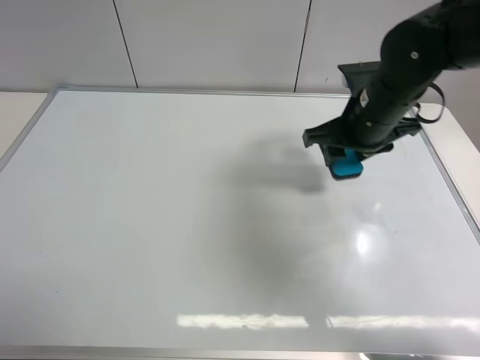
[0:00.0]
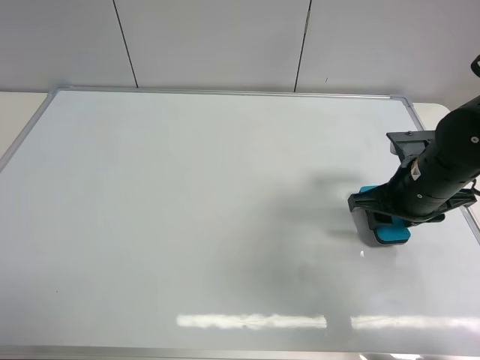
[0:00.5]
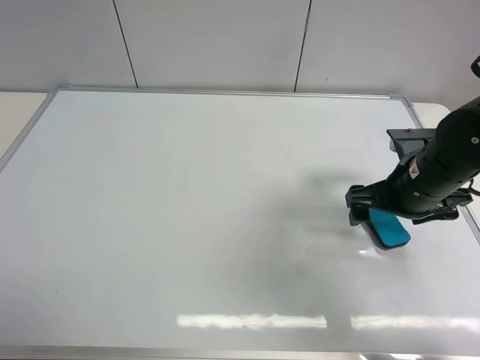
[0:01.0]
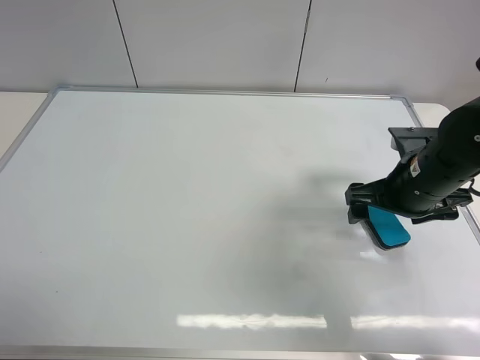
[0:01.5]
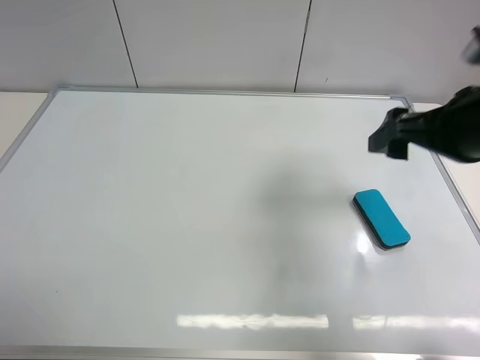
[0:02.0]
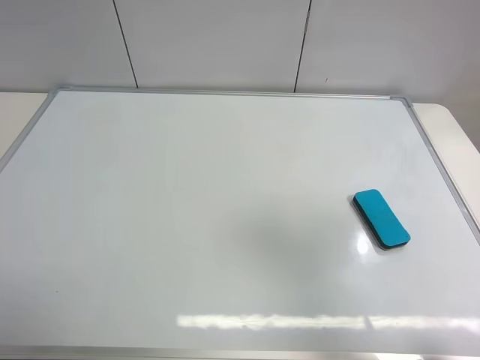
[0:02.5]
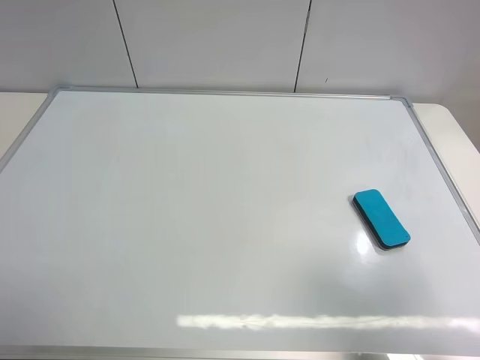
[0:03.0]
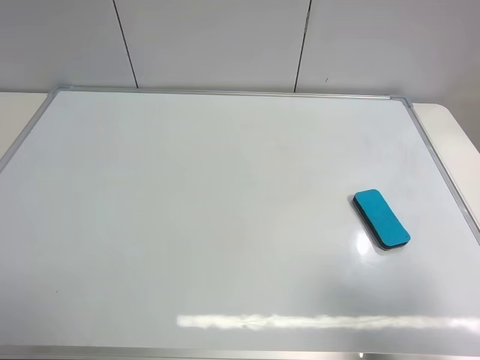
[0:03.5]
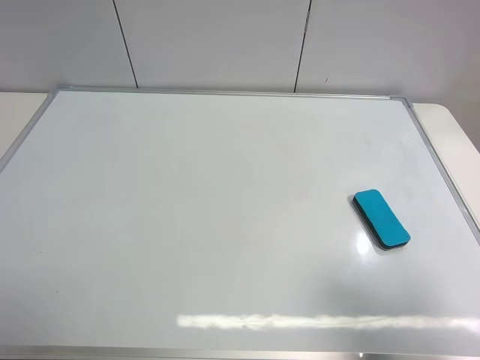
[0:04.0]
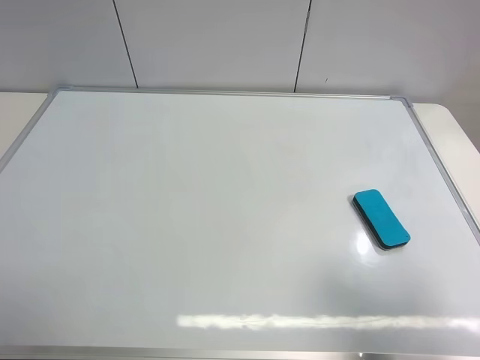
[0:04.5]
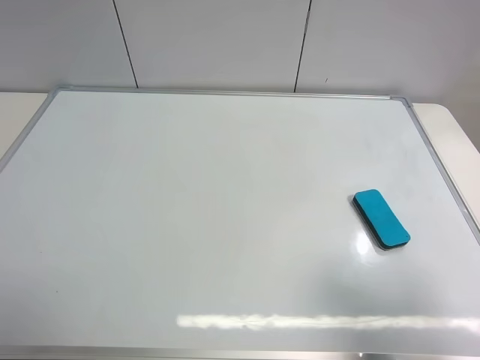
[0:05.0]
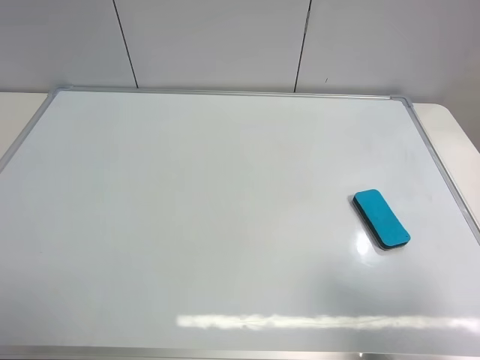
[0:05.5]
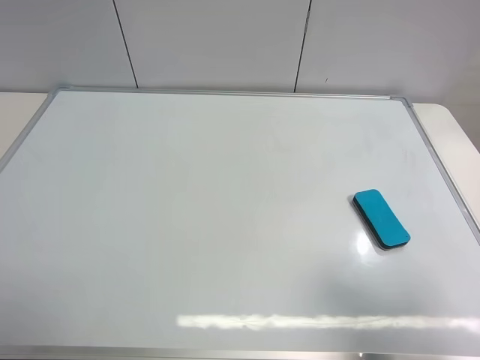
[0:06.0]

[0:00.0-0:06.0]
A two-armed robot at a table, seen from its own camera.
Task of the whole recording: use the left gripper to place the eraser in the right, use the right gripper to pick up the eraser, wipe the notes on the whiteboard clean, and then put it down.
Step, 0.0 to 1.5 s: Place the board eraser on the right side of board with right gripper.
0.0 to 2.0 s: The right gripper is displaced backward, upward and to the right by roughly 15 cm, and opens its fingers.
2.0 to 4.0 s: The right gripper shifts roughly 20 cm backward.
4.0 to 6.0 s: Both grippers stay about where they are.

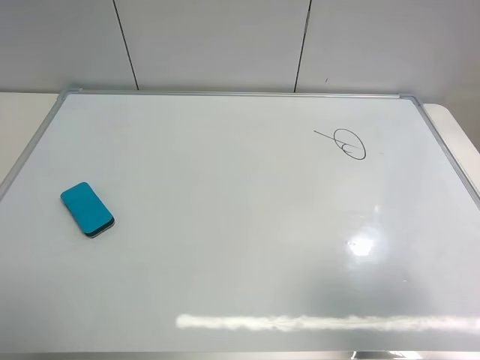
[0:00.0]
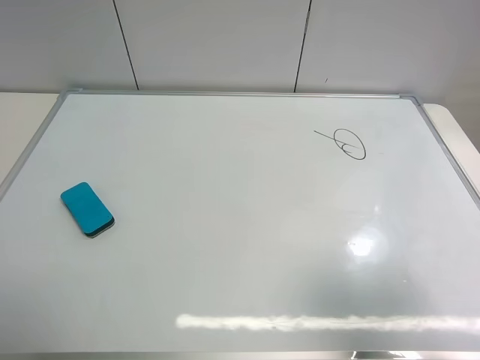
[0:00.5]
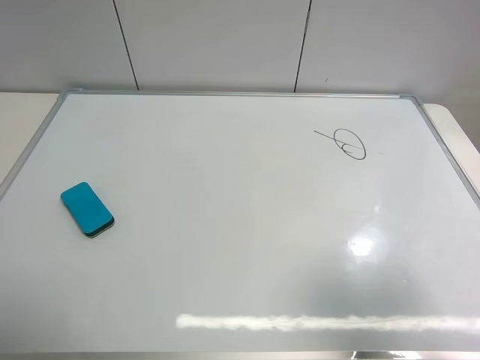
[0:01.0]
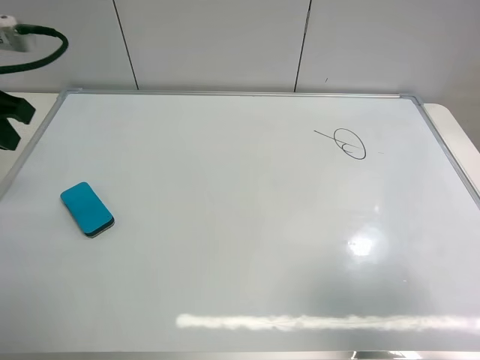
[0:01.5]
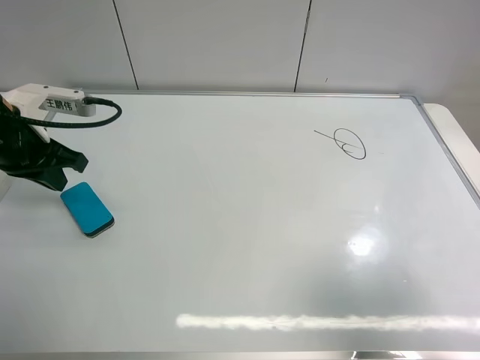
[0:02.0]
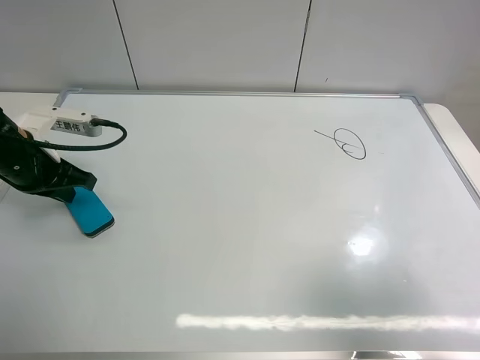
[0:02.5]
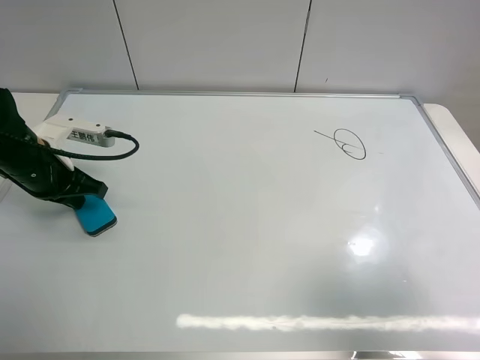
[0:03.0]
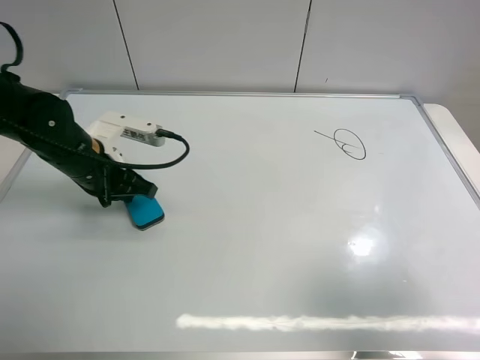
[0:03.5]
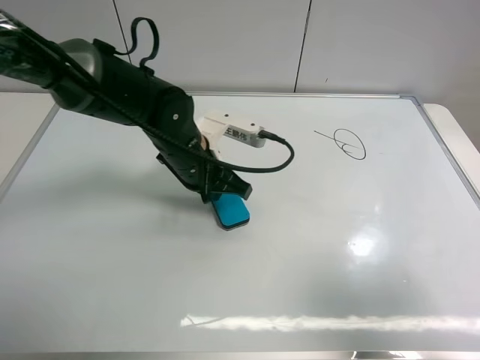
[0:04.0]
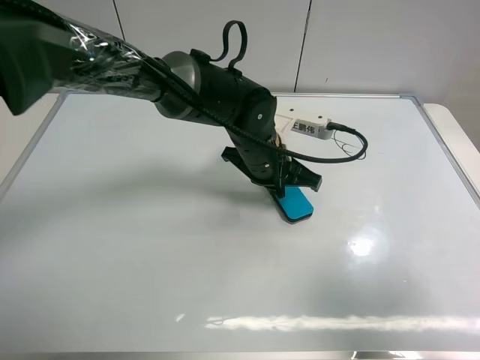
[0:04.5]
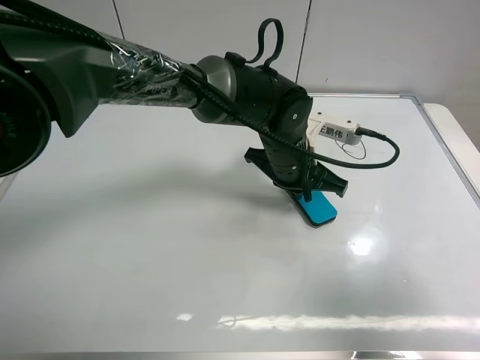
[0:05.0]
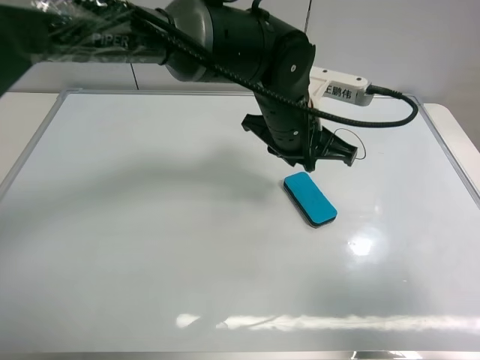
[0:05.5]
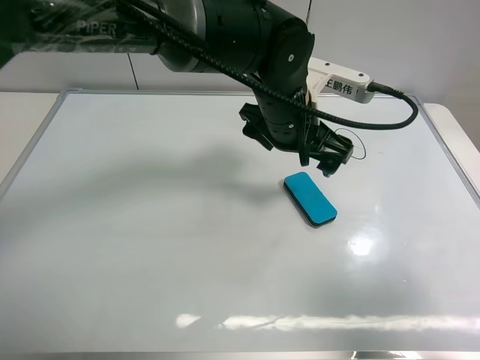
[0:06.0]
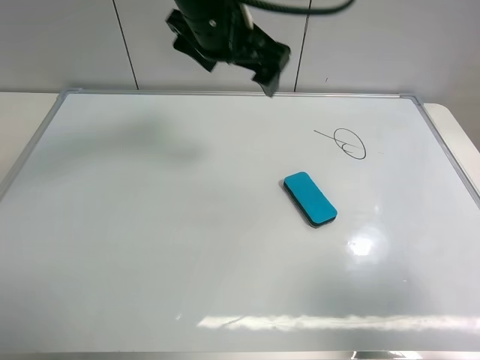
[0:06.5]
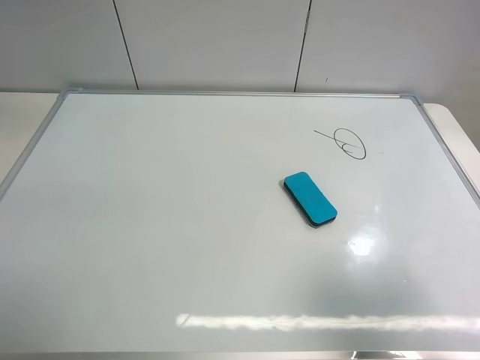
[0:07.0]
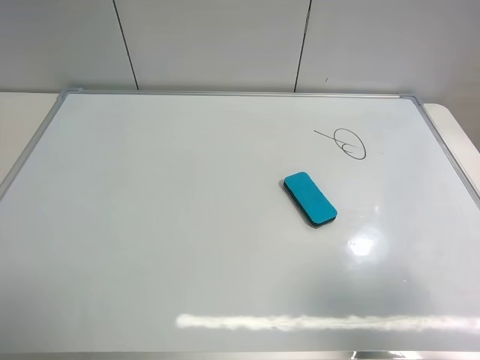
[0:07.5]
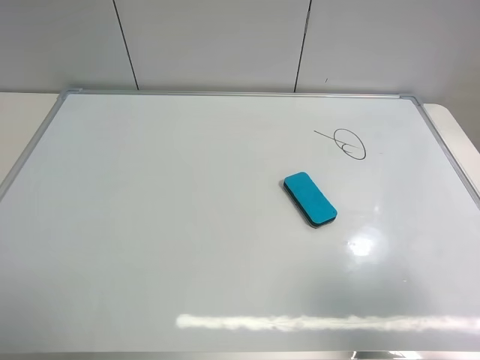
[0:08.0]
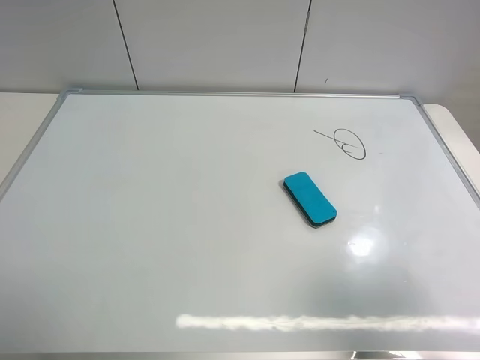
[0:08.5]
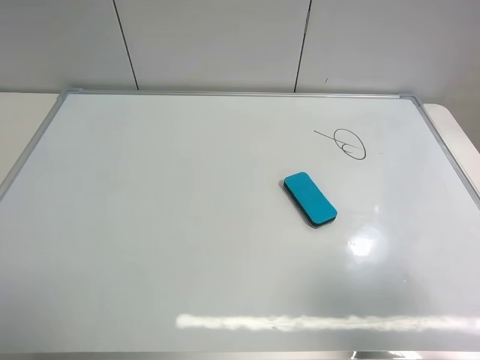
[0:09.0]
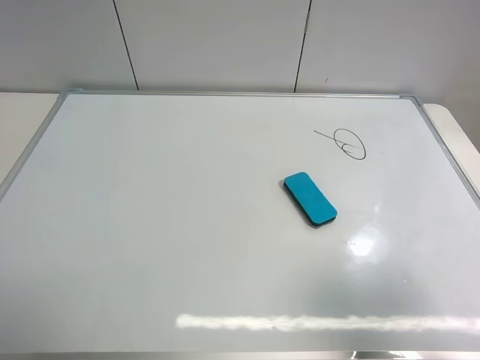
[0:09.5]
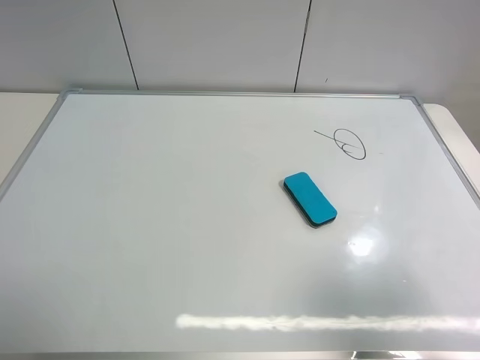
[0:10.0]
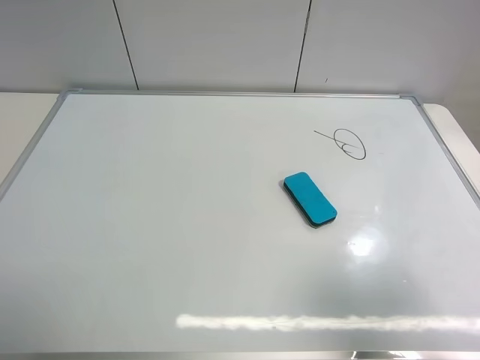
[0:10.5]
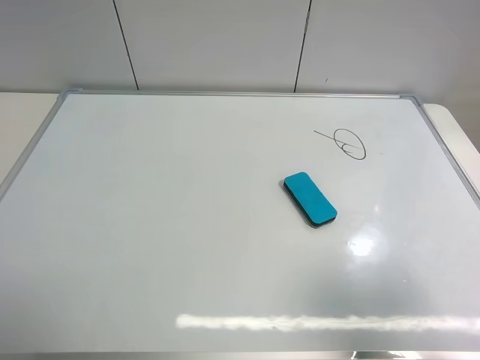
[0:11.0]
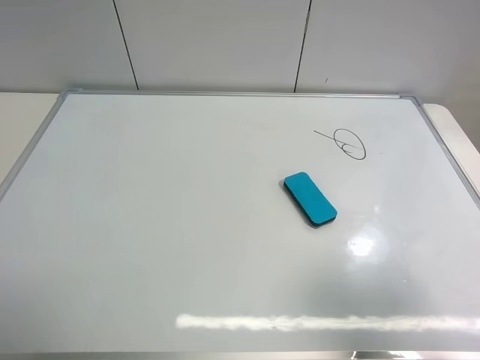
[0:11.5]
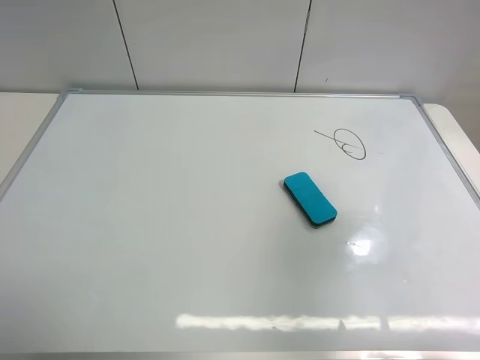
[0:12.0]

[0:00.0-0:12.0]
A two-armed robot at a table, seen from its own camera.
Task of the whole recording: use the left gripper to place the eraser in the right, use the right gripper to pick up the eraser, wipe the notes on the whiteboard clean, and then put it down.
Step, 0.0 to 5.0 s: Move the board eraser to the right of the whiteboard with left gripper.
0.0 to 2.0 s: The left gripper travels forward by about 30 cm, and closes up.
2.0 to 4.0 s: The left gripper heads to the right, covering roughly 20 cm.
4.0 to 6.0 s: The left gripper travels to the right and upward by approximately 15 cm, and opens up.
6.0 to 8.0 s: The left gripper goes roughly 60 cm to the left, backward and upward.
10.0 to 12.0 s: The right gripper travels forward and upward by approximately 10 cm.

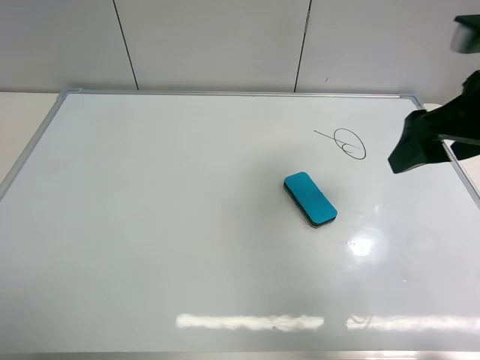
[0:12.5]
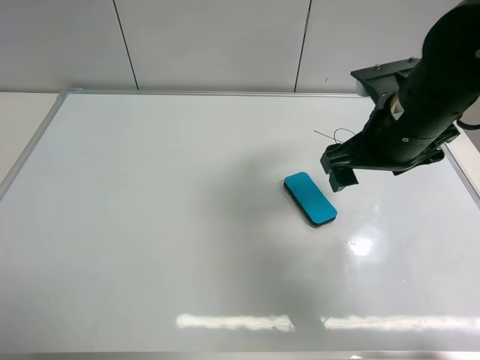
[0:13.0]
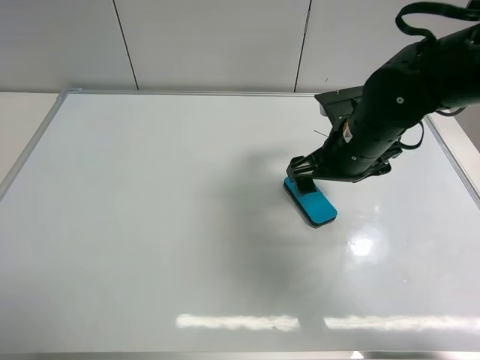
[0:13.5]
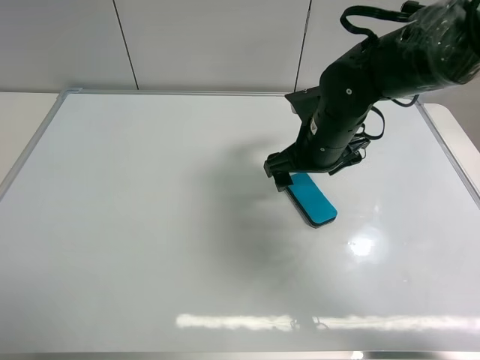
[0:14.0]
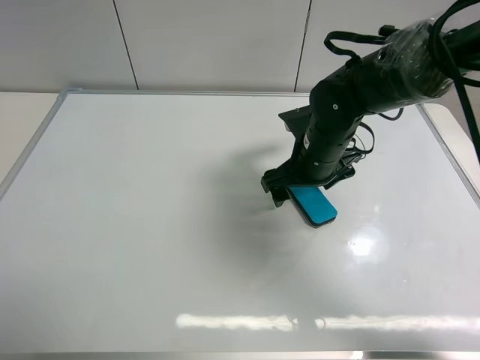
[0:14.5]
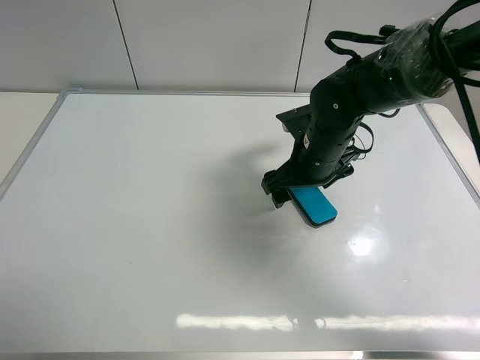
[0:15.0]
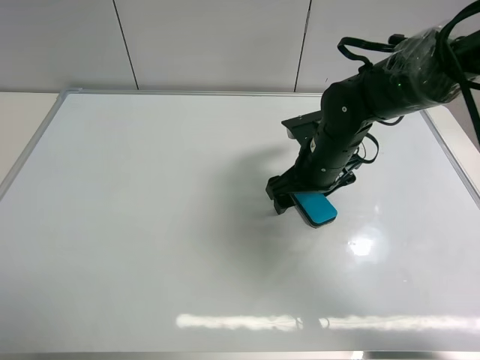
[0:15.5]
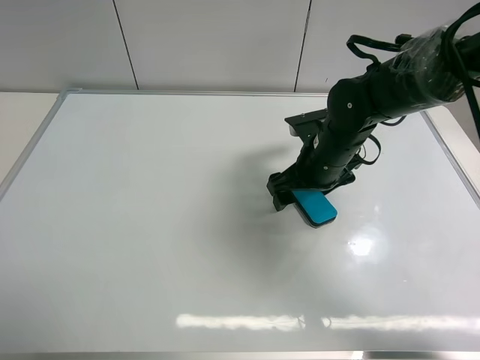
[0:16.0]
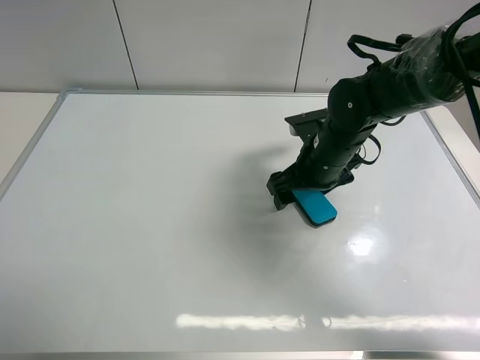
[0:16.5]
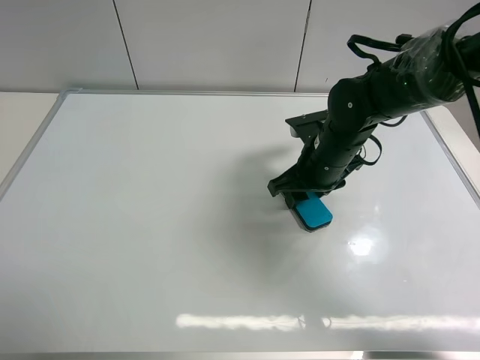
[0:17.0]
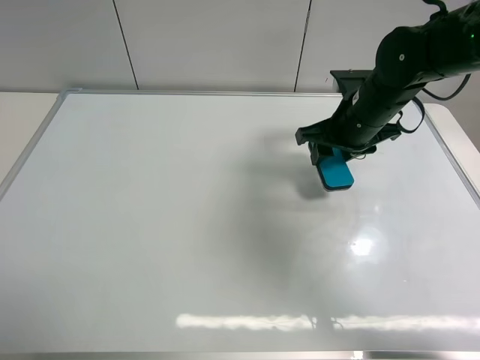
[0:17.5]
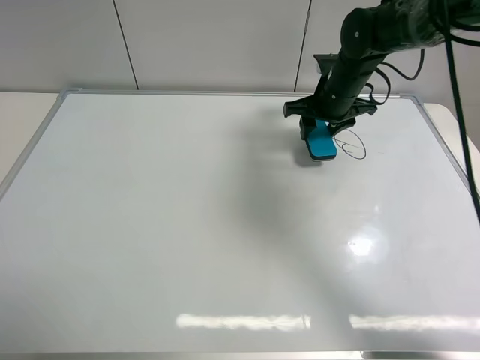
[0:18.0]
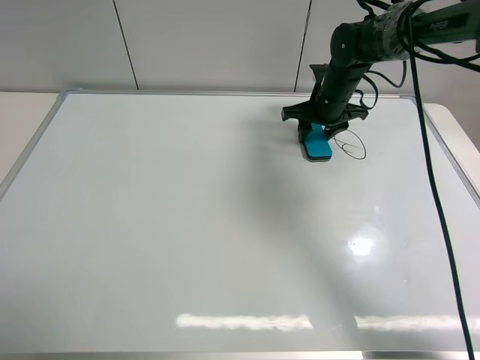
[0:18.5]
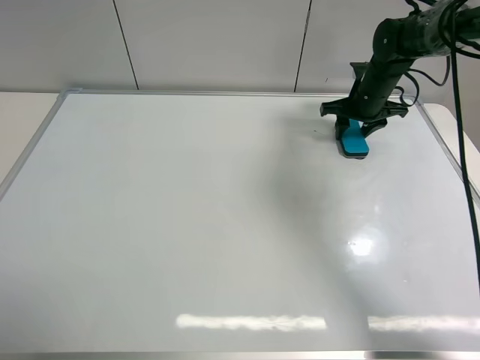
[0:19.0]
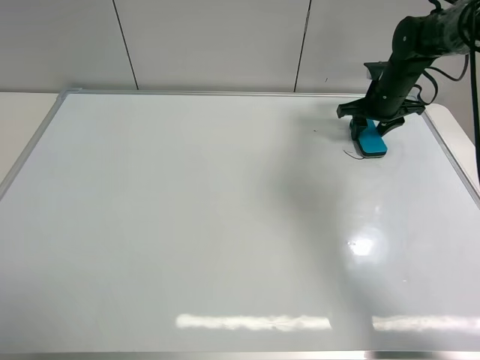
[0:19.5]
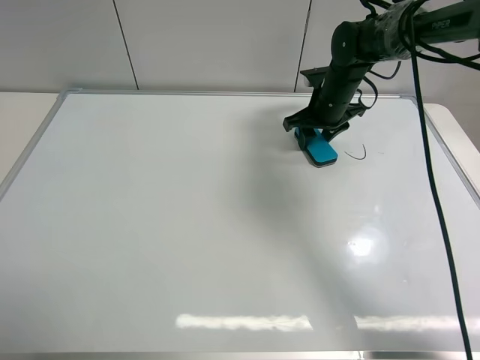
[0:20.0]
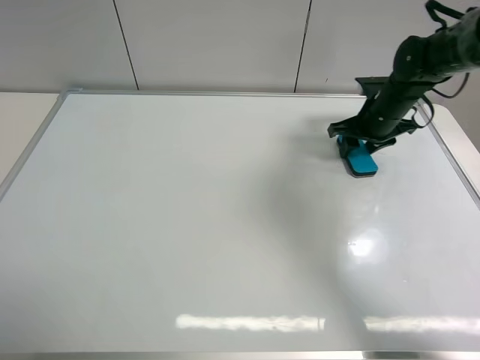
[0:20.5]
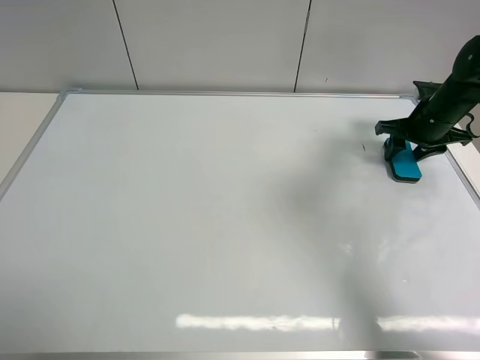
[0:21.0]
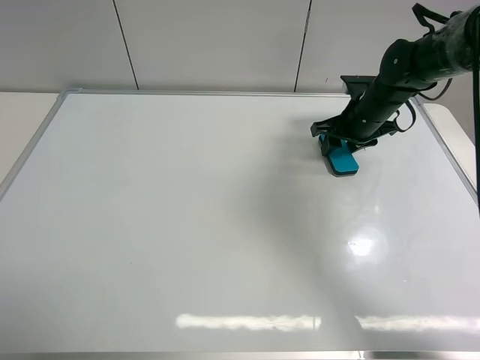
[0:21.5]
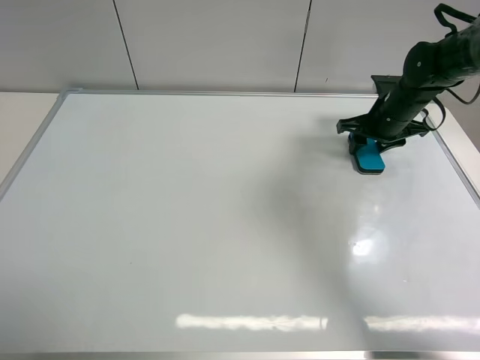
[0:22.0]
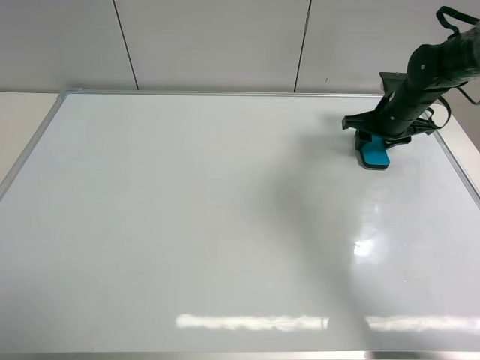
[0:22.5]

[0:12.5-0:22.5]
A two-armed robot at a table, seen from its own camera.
Task of the whole recording: use the left gripper to place the eraser in the right, use the right gripper to pick up the eraser, wipe the notes on the whiteboard clean, and then put it down.
Step, 12.5 to 17.0 s: Pick up the board eraser with right gripper.
12.5 to 14.5 s: The right gripper moves downward, to the left and forward, about 20 cm.
14.5 to 16.5 s: The grippers move only a little.
16.5 to 18.5 s: The right gripper heads forward, covering approximately 15 cm, and closes up.
18.5 to 20.5 s: The right gripper swings left and right, approximately 10 cm each way, with 2 reversals.
20.5 to 22.5 s: The right gripper swings left and right, roughly 10 cm each way, with 2 reversals.
